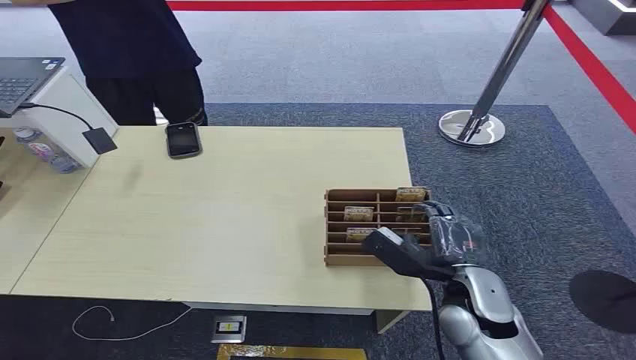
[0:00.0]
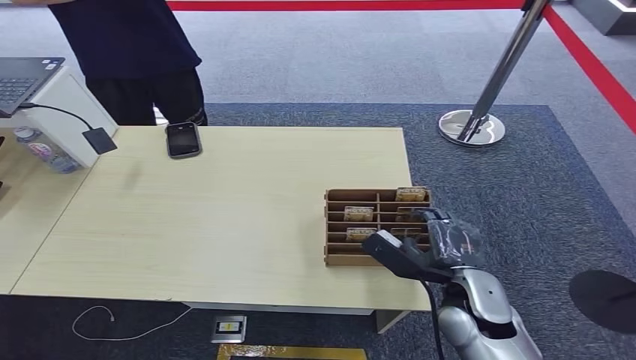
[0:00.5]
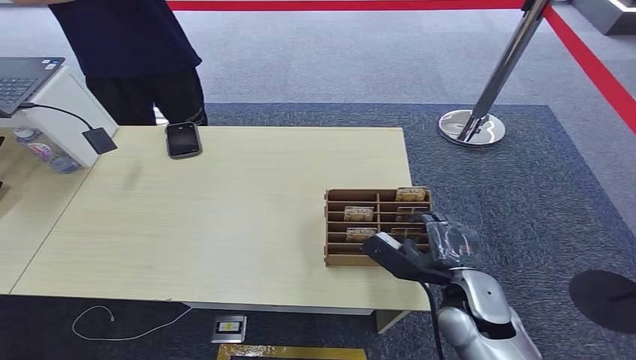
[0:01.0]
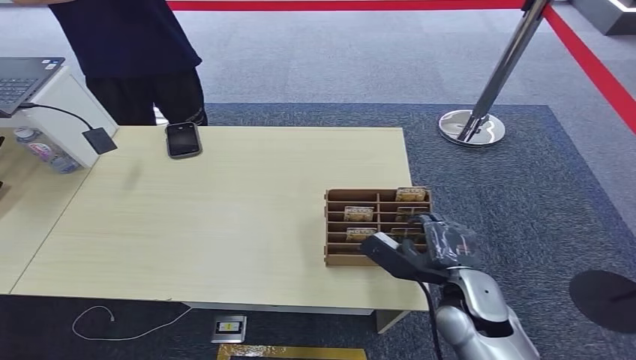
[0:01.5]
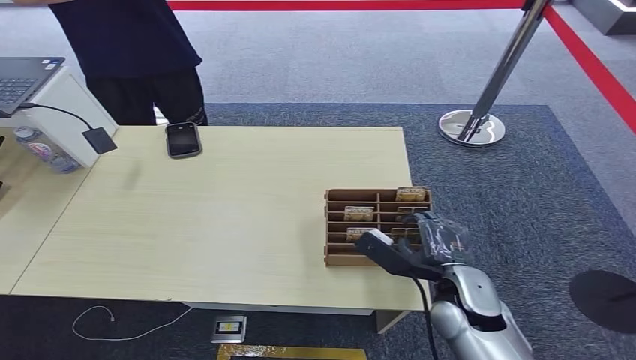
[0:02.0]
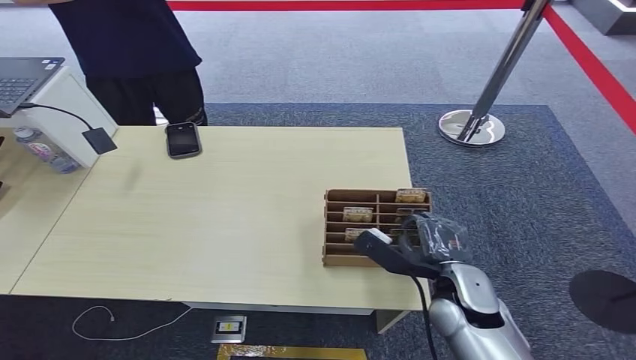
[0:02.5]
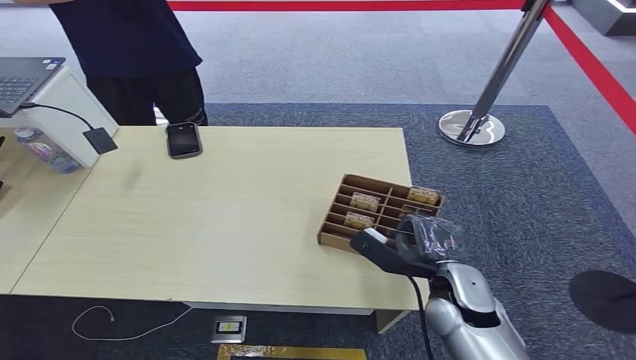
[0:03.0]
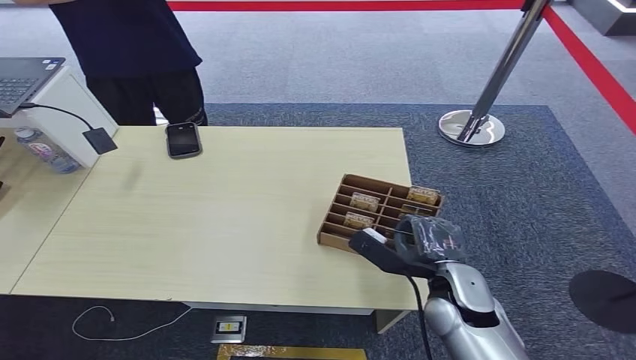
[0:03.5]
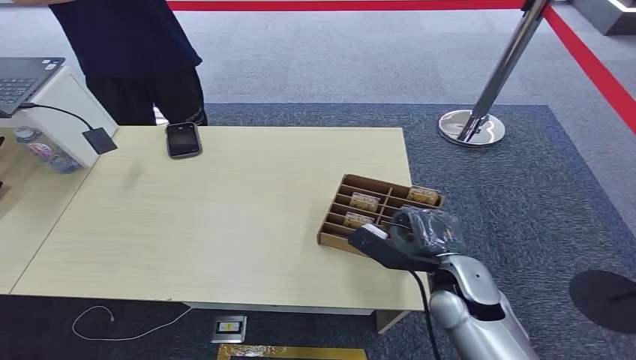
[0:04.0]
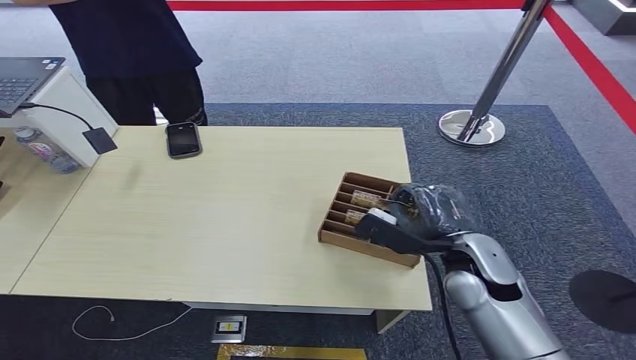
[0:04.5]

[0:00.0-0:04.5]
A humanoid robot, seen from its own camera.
Step, 0:00.0 to 0:04.5: Pick up the key card from the card box.
0:02.0 to 0:04.5: The right hand travels upward by some 5 cm.
